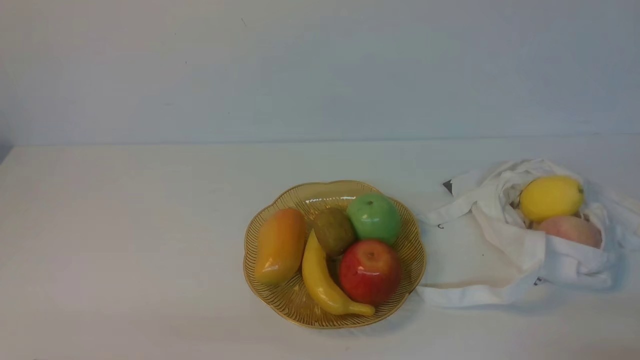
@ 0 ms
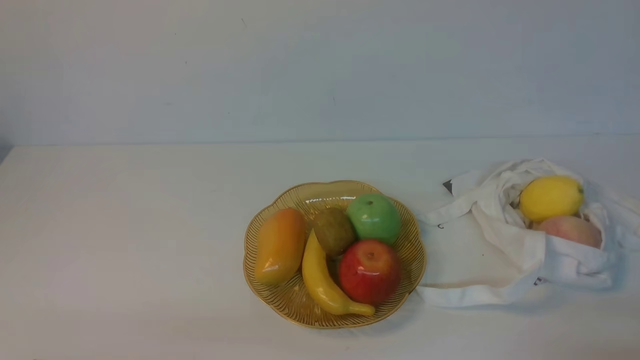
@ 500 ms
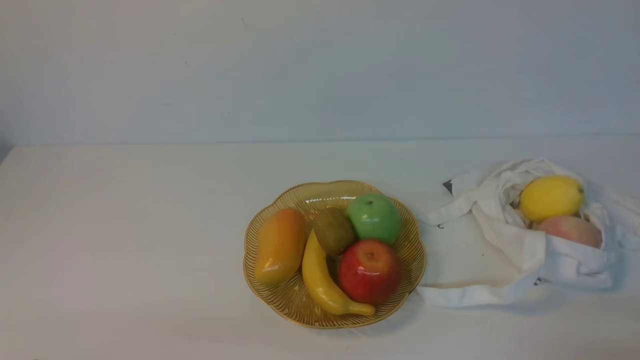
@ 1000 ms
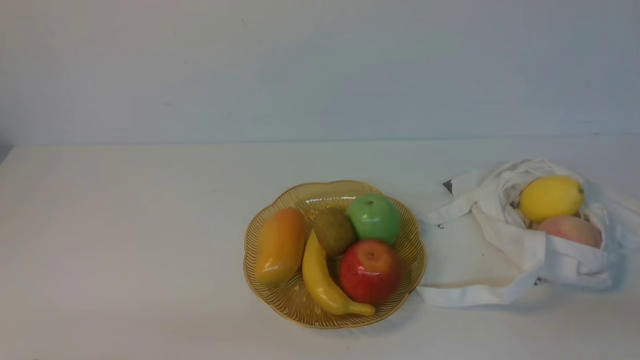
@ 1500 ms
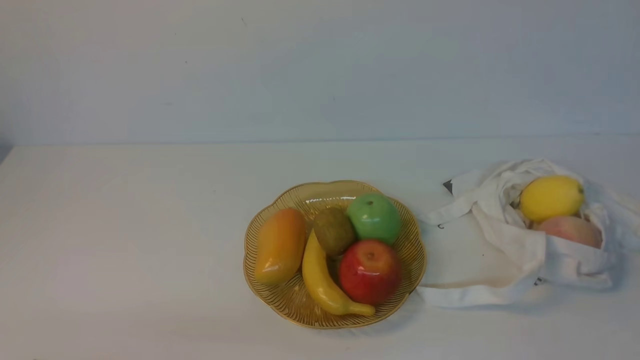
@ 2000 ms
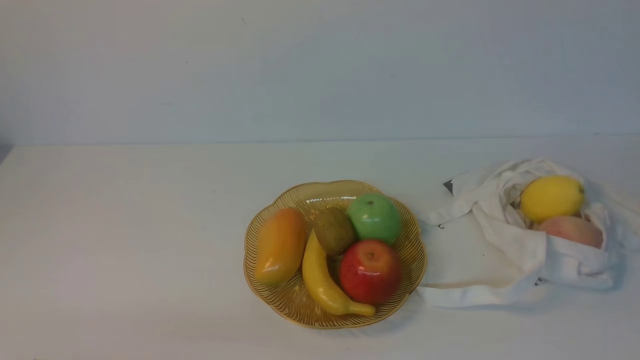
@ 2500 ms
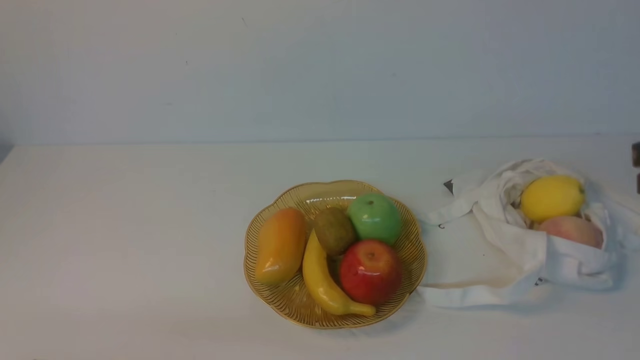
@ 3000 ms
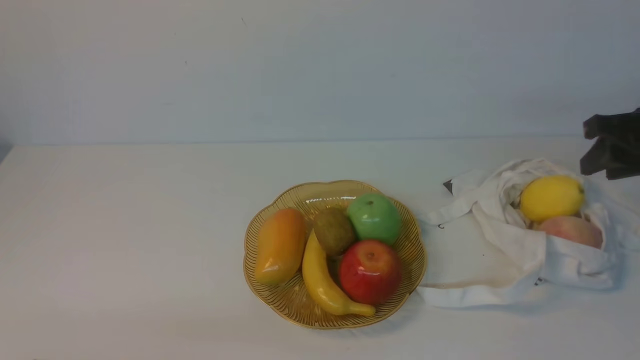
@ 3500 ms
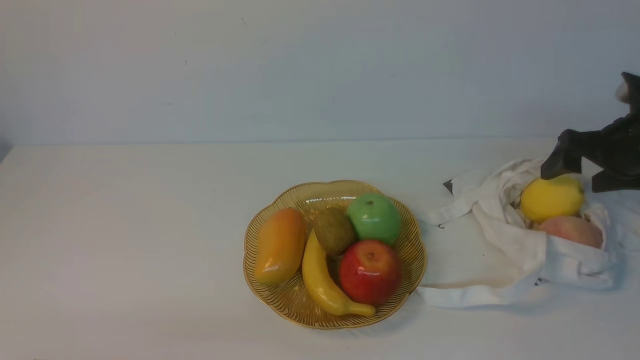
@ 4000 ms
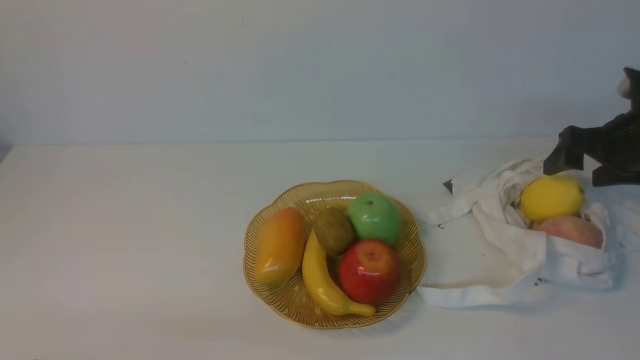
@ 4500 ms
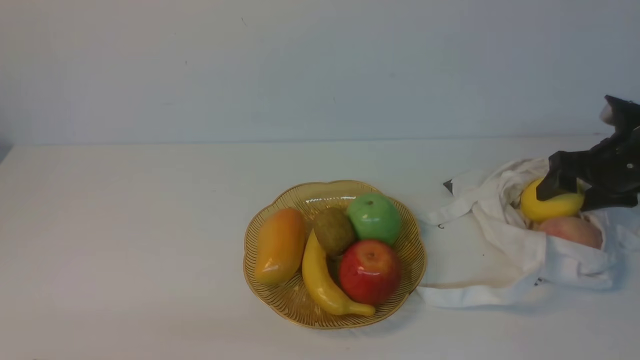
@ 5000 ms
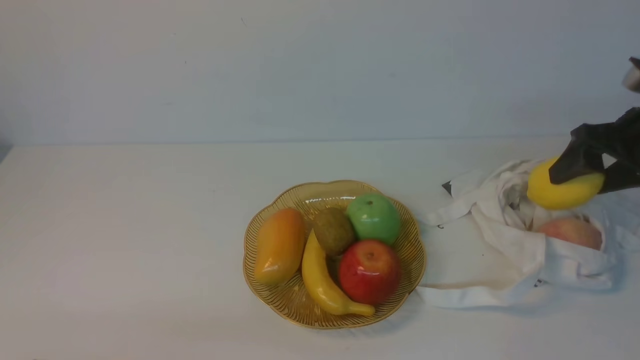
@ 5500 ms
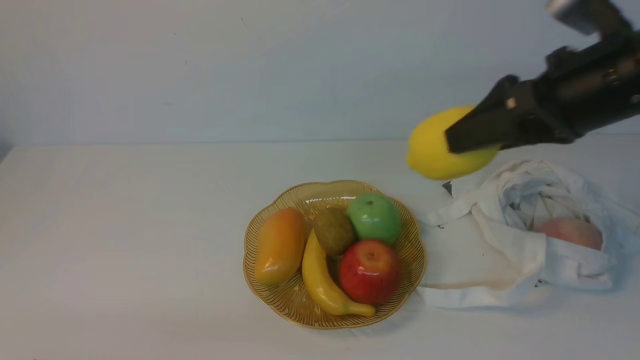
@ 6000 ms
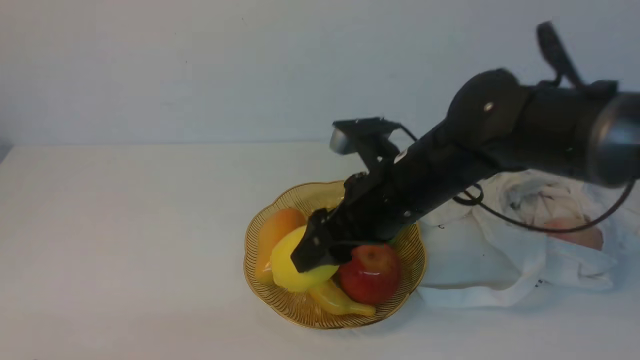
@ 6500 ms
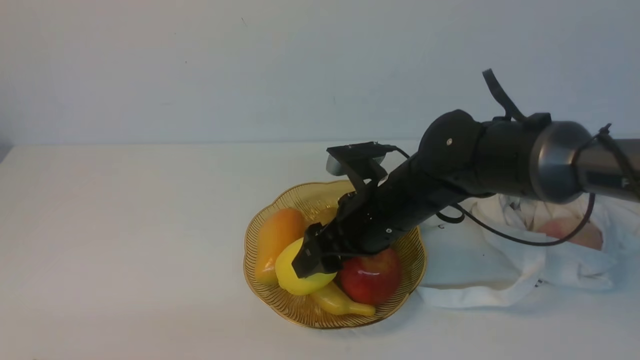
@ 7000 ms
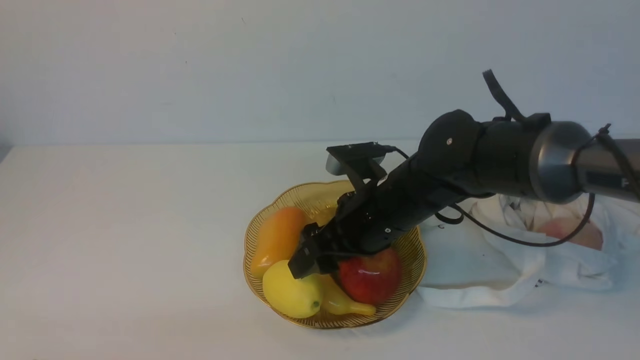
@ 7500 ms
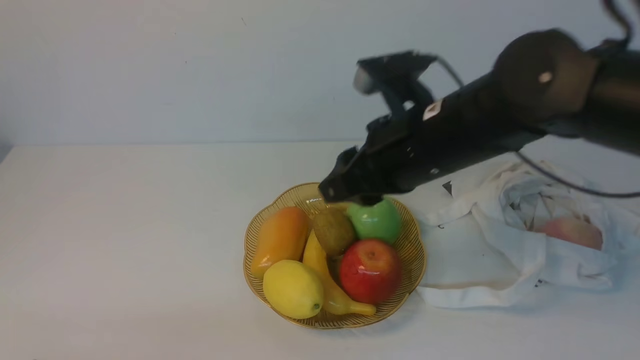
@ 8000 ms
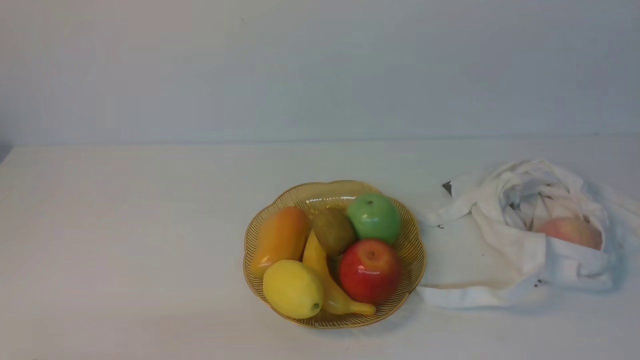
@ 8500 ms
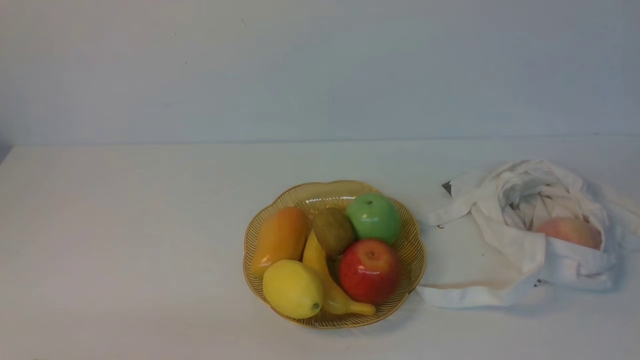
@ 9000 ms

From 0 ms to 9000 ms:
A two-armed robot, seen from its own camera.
Step, from 0 ms to 5500 ms: use the right arm to grab a lemon from the bag.
Step, from 6000 ms to 7500 ms: use the right arm to put the lemon into the empty plate on the left.
From 2000 ms to 4500 ms: The right gripper heads forward, covering approximately 35 cm, and opens its fingers.
From 4500 ms to 7000 ms: The right gripper shifts roughly 30 cm to the left.
From 7000 ms to 9000 ms: The right gripper heads backward, to the right and upward, covering roughly 40 cm, and closes.

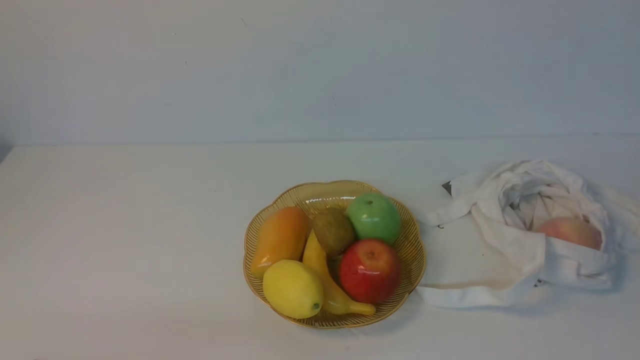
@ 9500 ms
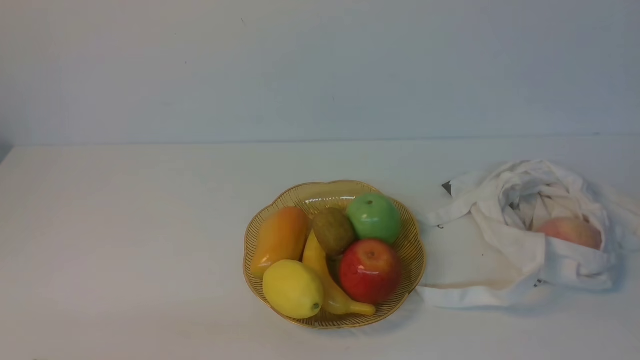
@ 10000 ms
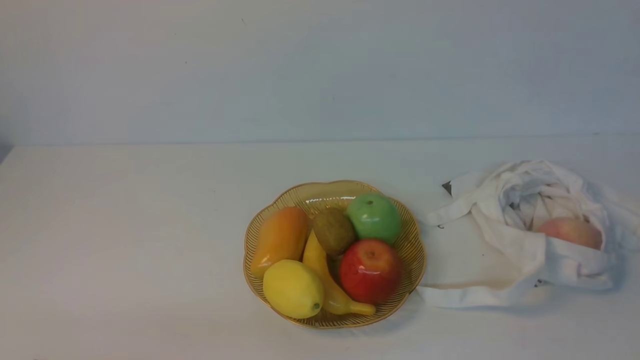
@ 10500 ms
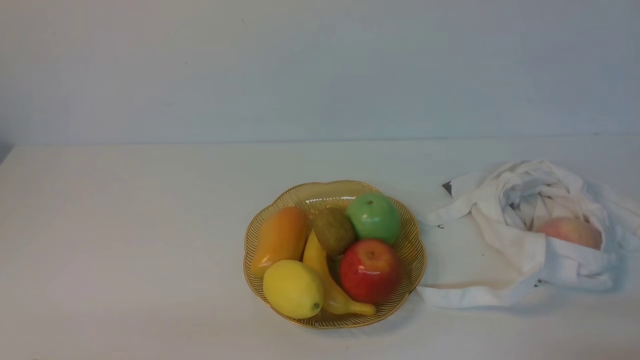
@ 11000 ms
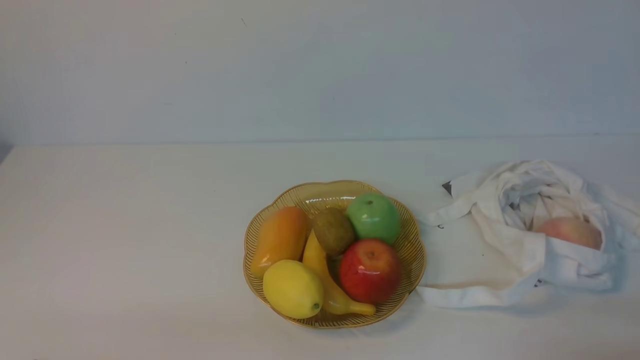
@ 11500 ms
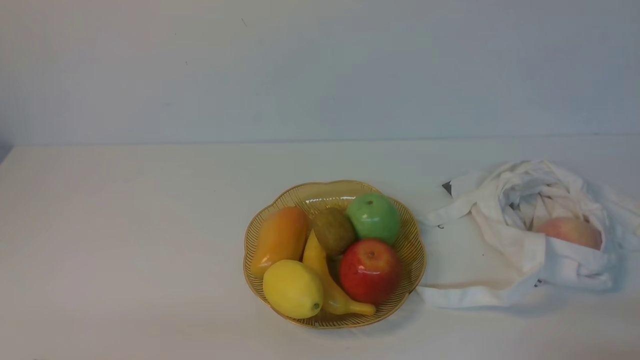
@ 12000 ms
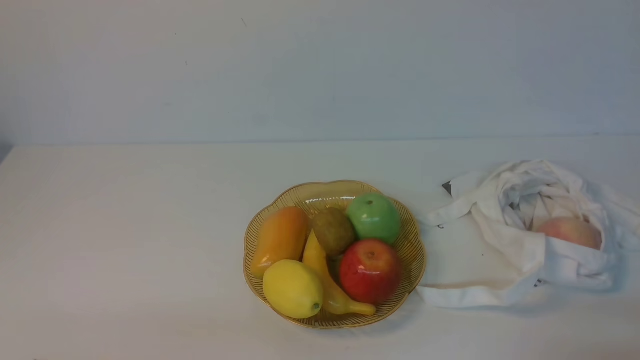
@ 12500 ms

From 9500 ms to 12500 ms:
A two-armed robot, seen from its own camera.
From 11000 ms to 12500 ms: Both grippers stay about where they are.
